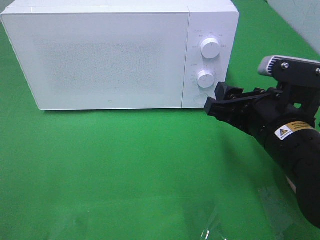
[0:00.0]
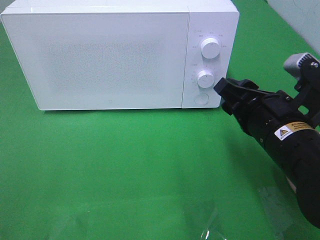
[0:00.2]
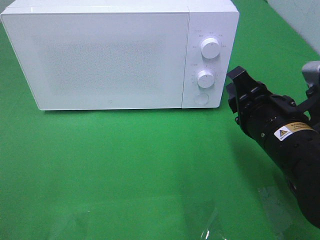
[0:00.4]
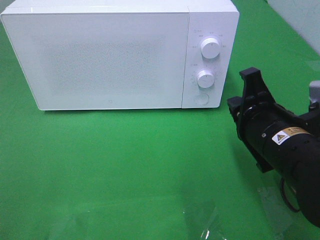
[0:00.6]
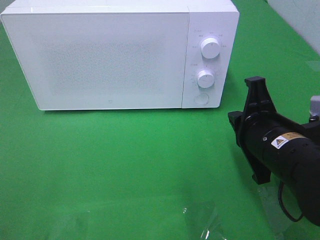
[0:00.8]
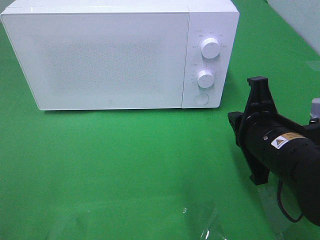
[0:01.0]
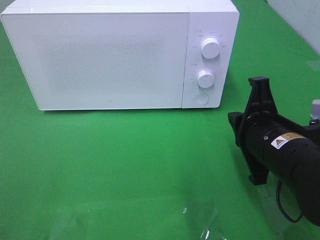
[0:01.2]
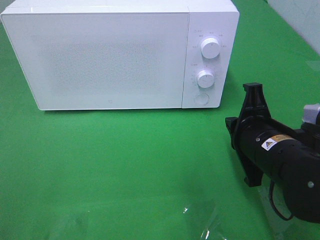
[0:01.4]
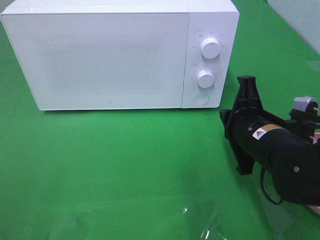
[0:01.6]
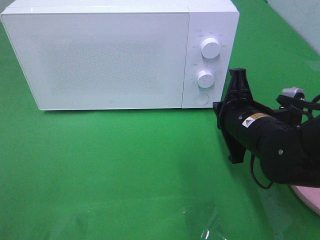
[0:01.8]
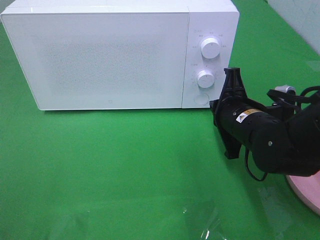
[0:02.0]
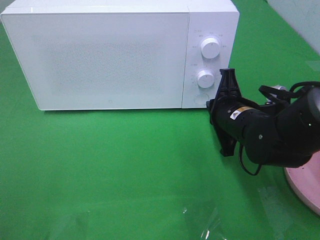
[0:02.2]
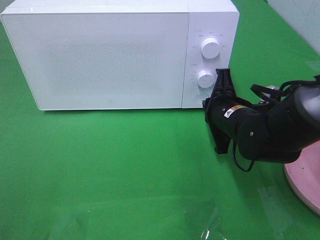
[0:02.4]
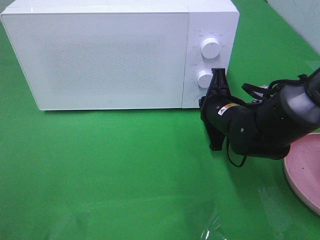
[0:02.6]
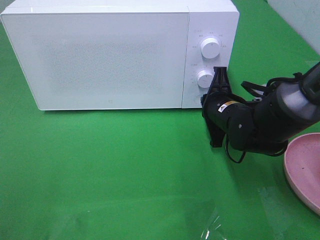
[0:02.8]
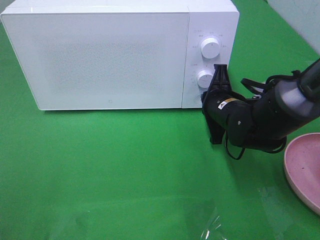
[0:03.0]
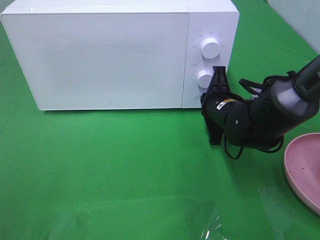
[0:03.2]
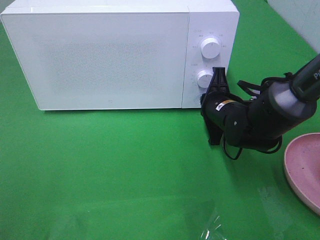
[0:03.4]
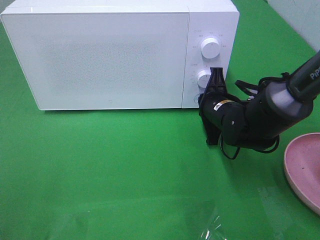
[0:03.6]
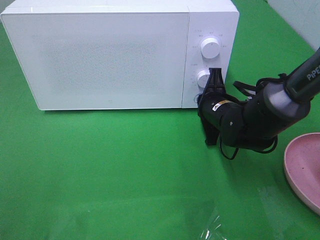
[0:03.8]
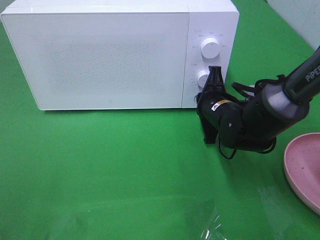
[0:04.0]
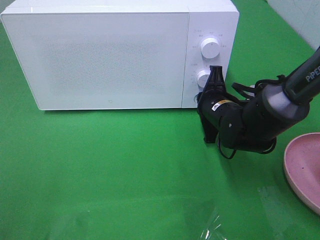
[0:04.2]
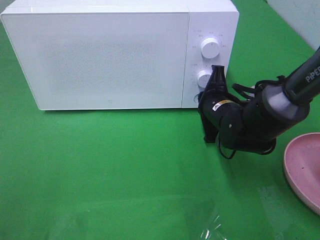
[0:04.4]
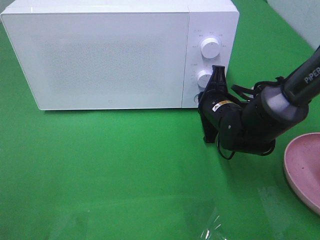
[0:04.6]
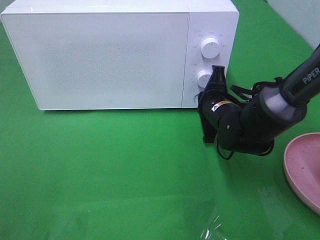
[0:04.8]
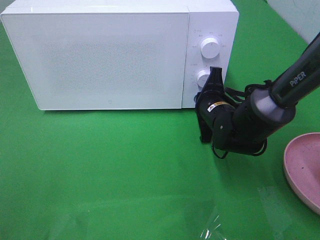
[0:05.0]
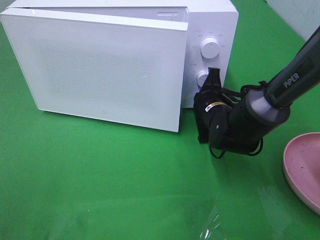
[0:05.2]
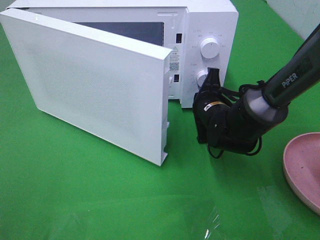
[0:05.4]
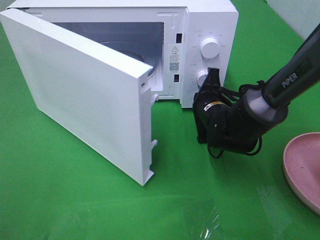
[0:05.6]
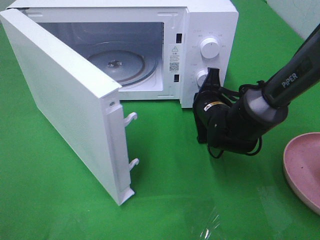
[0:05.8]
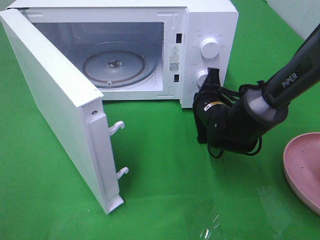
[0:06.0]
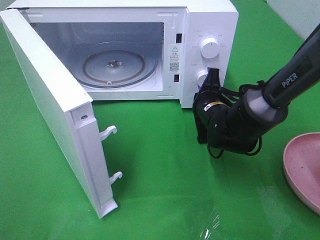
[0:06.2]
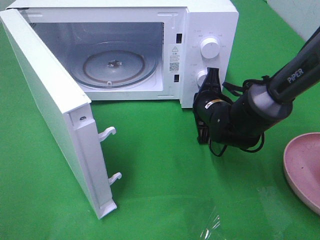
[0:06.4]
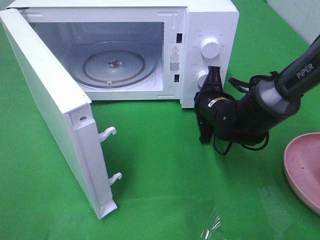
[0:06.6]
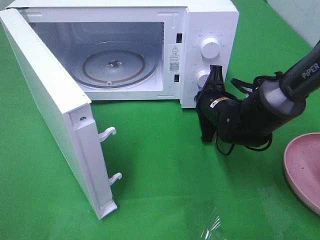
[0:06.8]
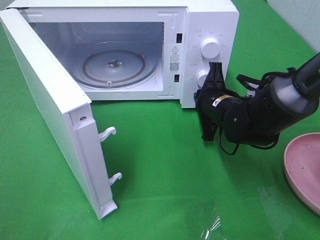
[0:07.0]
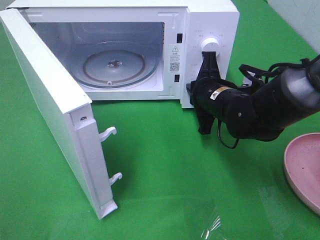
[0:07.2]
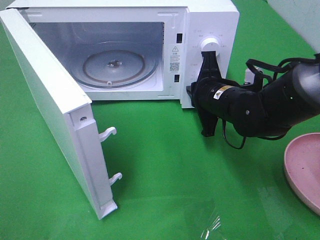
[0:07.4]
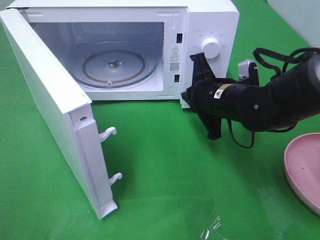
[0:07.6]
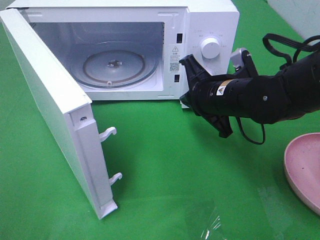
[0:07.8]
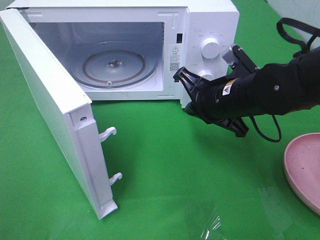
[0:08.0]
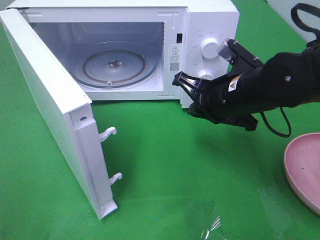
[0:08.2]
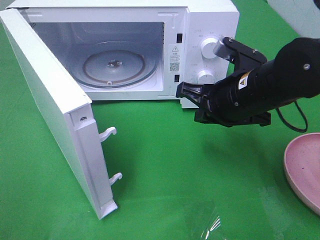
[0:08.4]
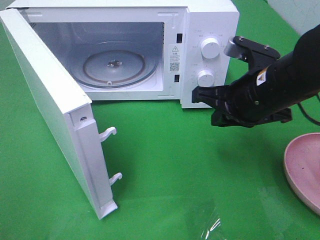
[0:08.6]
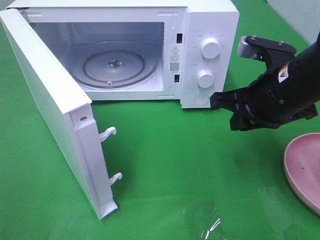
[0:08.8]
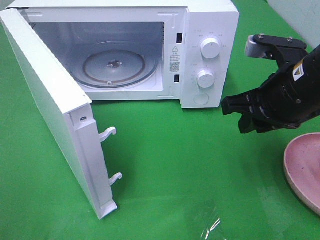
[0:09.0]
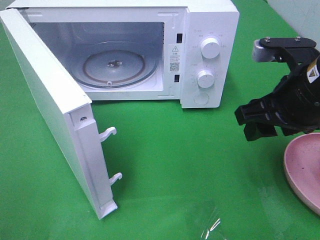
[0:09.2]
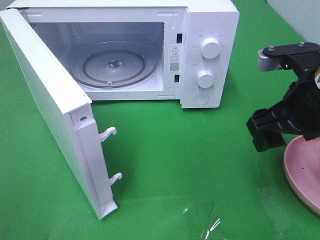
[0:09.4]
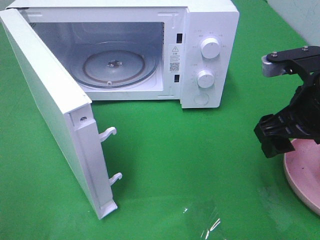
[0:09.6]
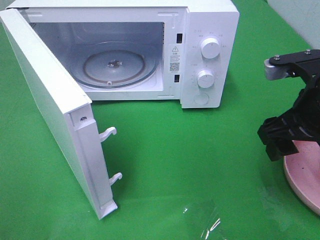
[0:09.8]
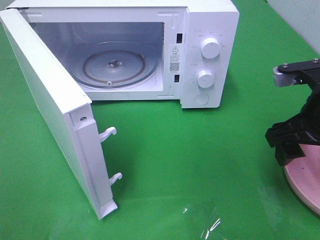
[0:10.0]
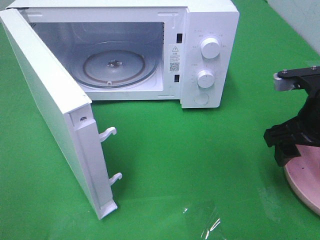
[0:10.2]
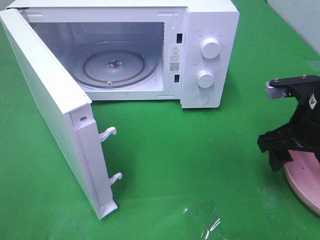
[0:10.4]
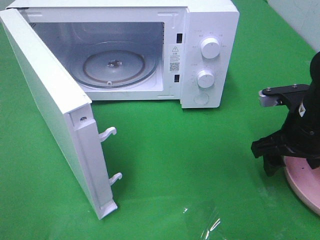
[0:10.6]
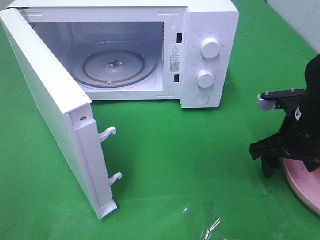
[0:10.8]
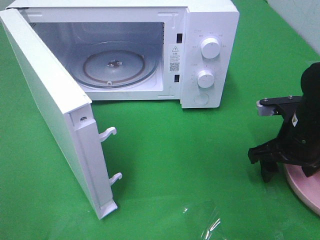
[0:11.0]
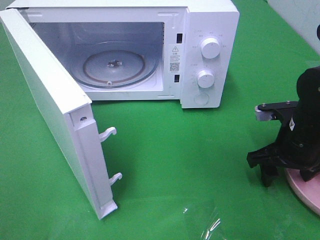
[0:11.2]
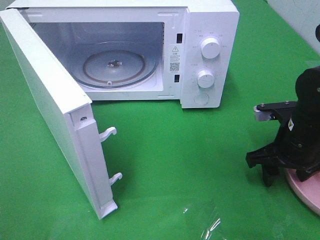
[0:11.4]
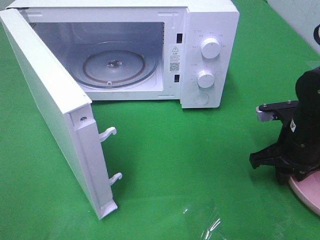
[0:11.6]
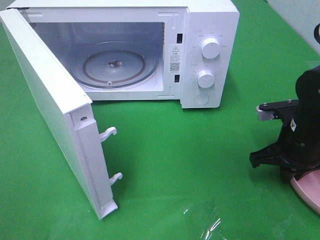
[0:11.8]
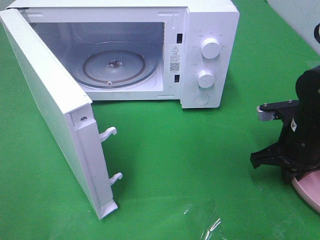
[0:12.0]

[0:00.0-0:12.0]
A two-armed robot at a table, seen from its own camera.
Task of the whole recording: Heat the burger.
Step, 0:00.0 to 0:07.2: Right hand: press the switch.
0:00.0 to 0:01.6: The right gripper closes.
0:01.6 to 0:03.0: The right gripper moves forward, roughly 10 cm.
0:03.0 to 0:04.4: The grippers stay close to where they were, moving slightly.
0:06.0 to 0:07.6: The right gripper is displaced upward by about 5 cm.
0:07.6 to 0:09.0: The right gripper moves upward, to the right and backward, some 15 cm, and opens.
0:09.0 to 0:10.4: The right gripper travels downward and to the right by about 5 cm, and opens.
0:10.4 to 0:12.0: The right gripper travels downward by roughly 5 cm, and closes.

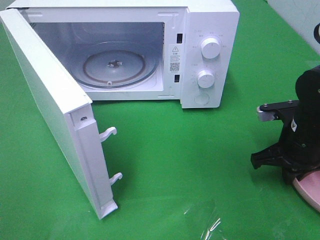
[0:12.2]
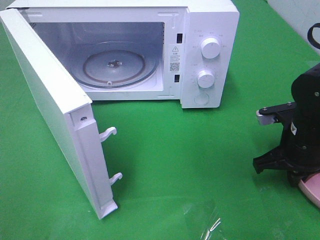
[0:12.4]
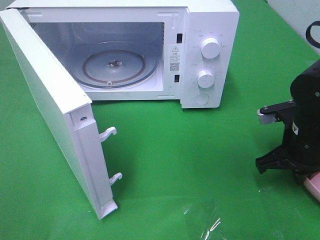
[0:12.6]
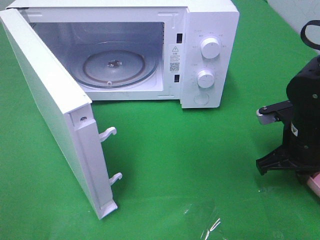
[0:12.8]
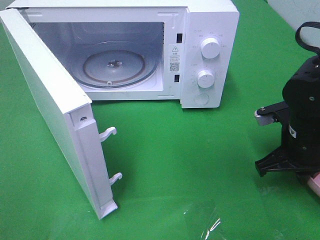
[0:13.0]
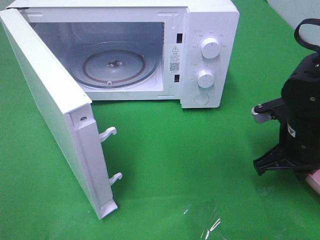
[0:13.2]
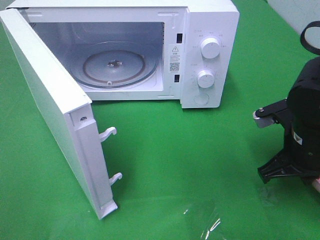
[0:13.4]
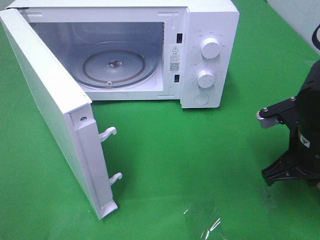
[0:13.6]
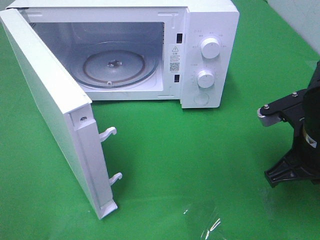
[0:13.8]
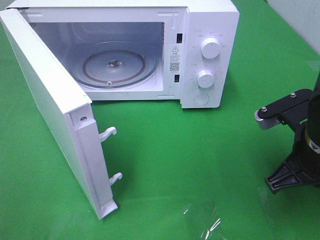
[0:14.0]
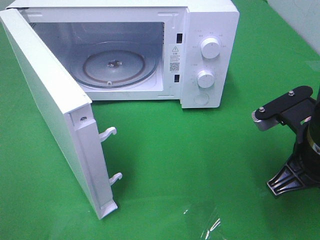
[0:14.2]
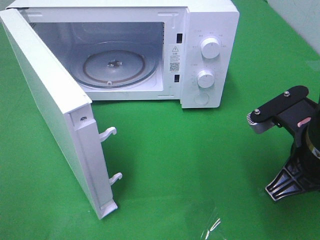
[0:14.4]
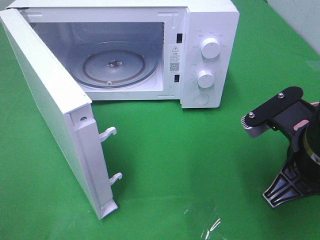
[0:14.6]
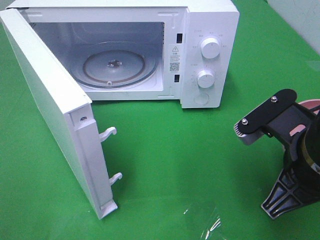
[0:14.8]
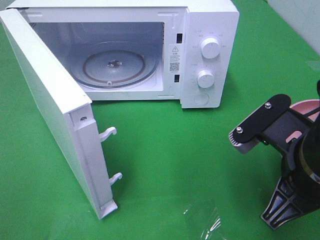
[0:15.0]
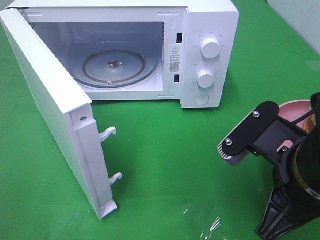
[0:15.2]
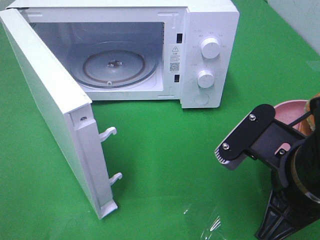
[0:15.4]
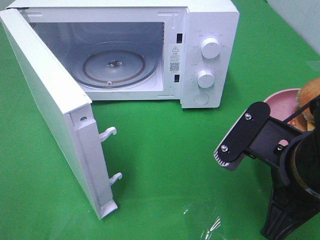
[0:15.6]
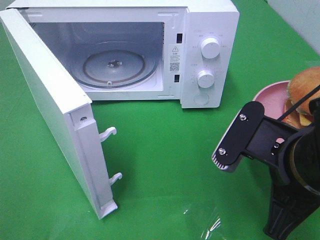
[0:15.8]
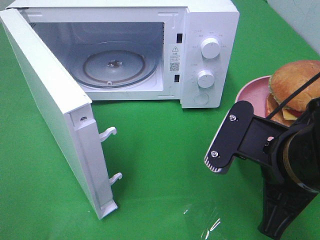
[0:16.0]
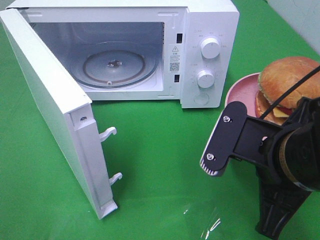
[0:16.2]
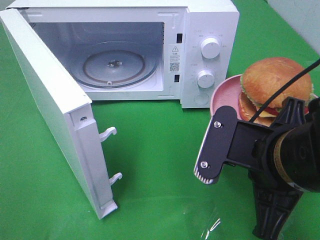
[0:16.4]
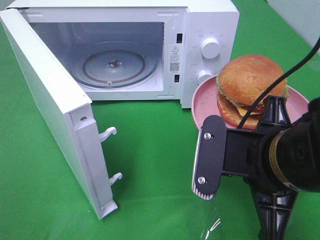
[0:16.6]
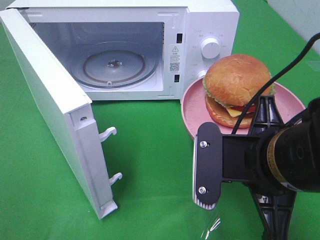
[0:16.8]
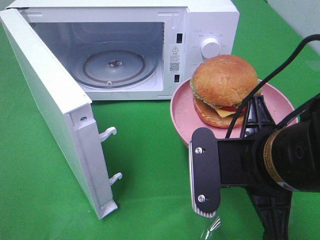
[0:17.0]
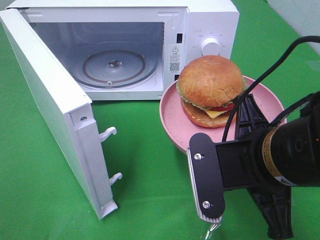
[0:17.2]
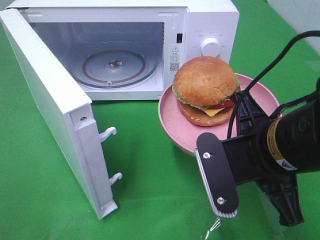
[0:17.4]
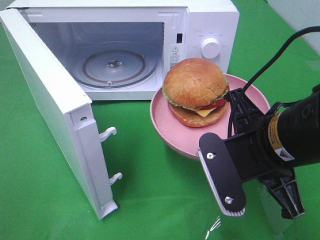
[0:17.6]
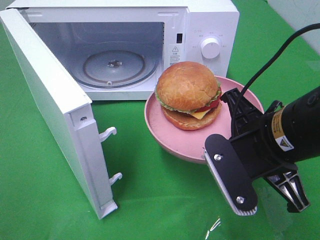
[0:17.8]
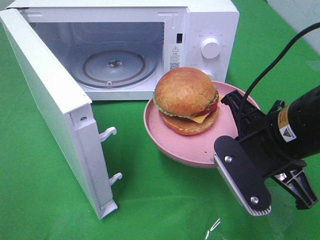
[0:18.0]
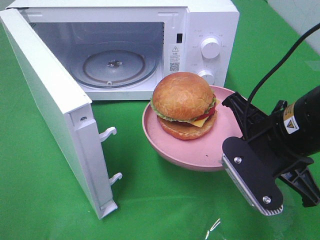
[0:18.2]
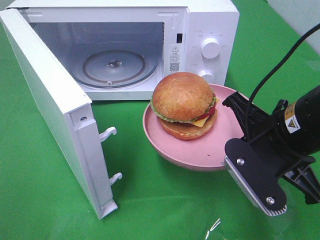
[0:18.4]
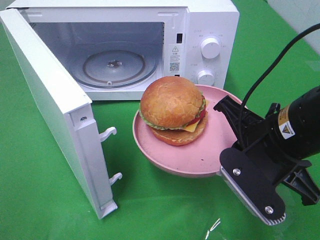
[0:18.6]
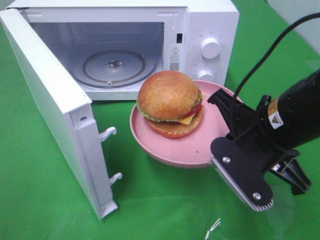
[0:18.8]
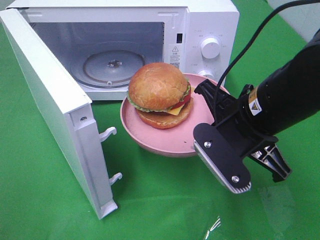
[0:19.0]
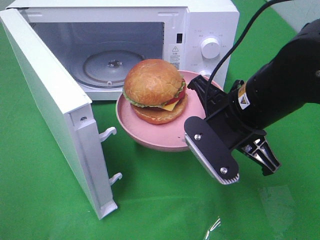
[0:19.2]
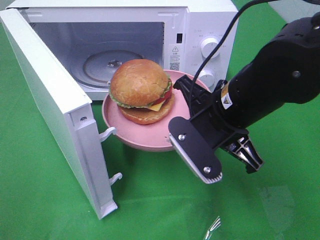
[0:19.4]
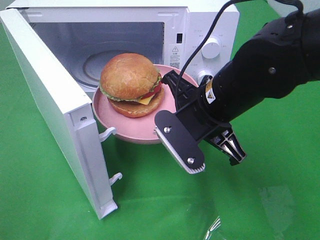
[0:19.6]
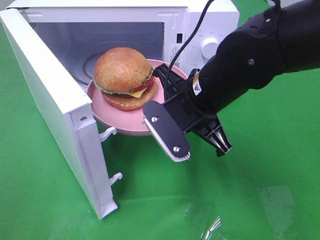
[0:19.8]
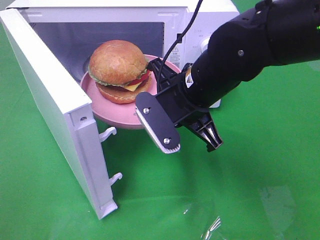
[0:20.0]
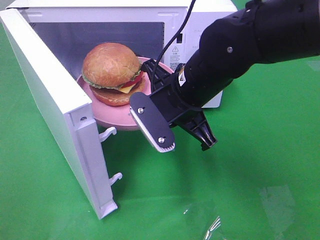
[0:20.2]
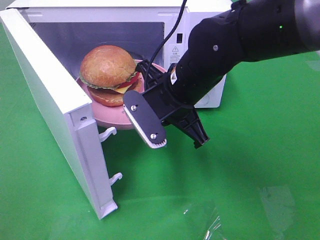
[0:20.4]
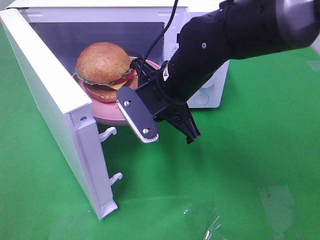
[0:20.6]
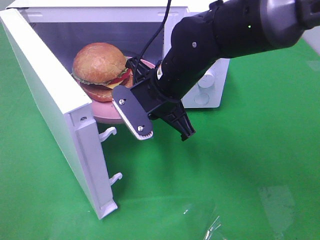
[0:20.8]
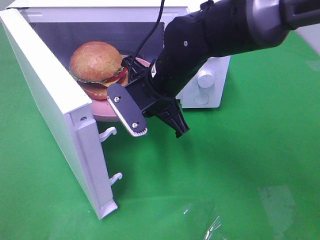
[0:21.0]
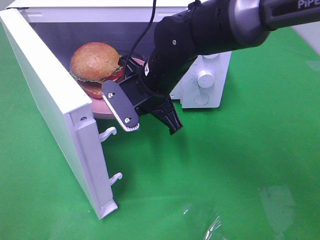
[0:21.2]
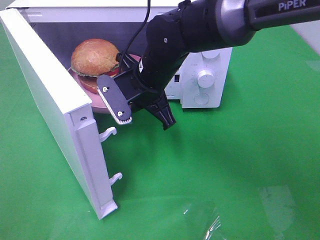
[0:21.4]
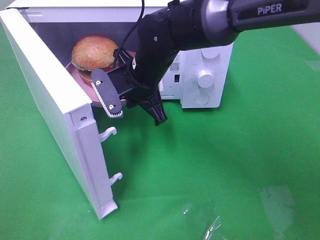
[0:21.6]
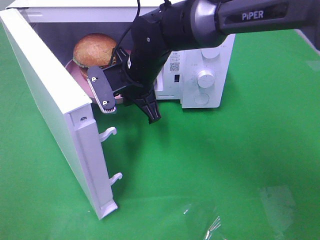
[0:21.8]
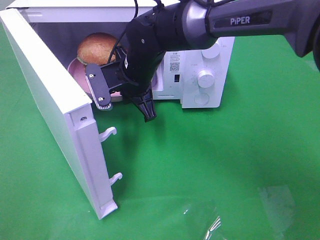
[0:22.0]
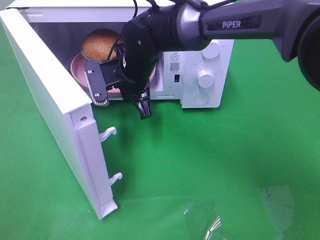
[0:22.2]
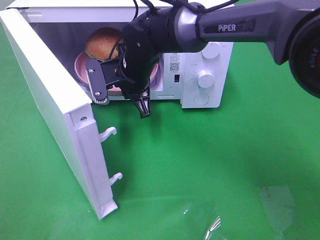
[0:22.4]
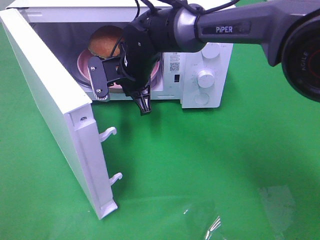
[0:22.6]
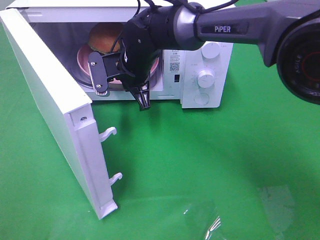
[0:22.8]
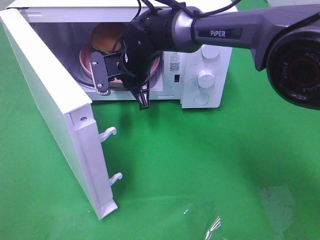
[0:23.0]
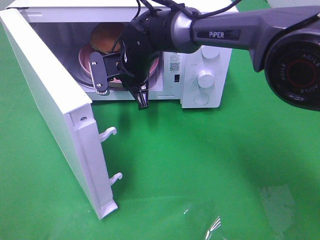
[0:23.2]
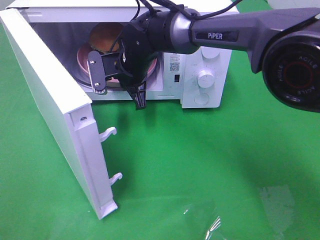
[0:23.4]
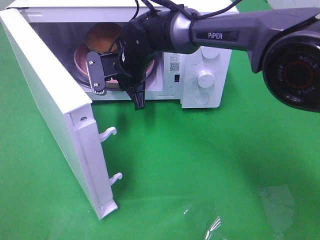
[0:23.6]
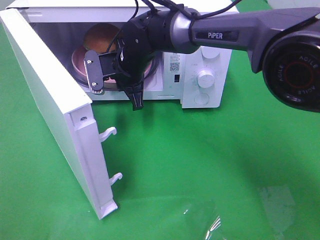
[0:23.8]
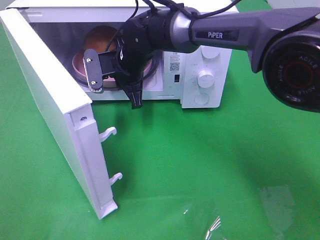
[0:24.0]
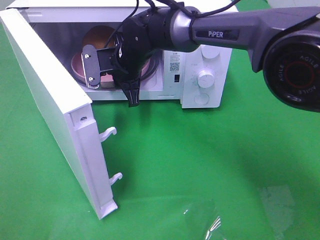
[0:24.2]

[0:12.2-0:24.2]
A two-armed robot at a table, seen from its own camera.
Task of the whole recording: Heat the burger.
0:12.2 to 0:13.8: The right gripper shifts about 10 cm backward and upward.
0:13.8 to 0:15.2: The right gripper goes some 10 cm backward and to the left.
0:16.6 to 0:18.2: The right gripper goes roughly 5 cm forward.
0:18.2 to 0:19.8: The right gripper shifts approximately 10 cm to the left and forward.
0:19.8 to 0:21.2: The right gripper moves forward and to the left, approximately 10 cm.
0:21.2 to 0:22.6: The right gripper travels forward by about 5 cm.
0:22.6 to 0:24.2: The grippers stay close to where they were, moving slightly.
